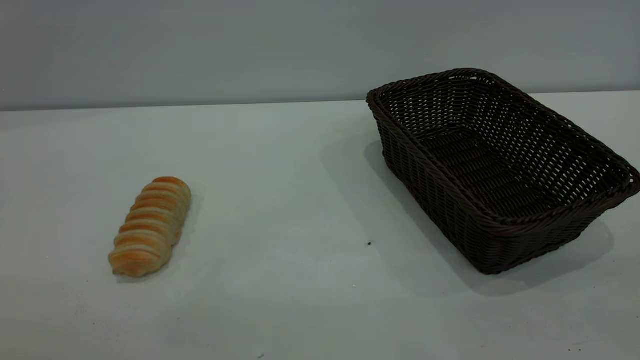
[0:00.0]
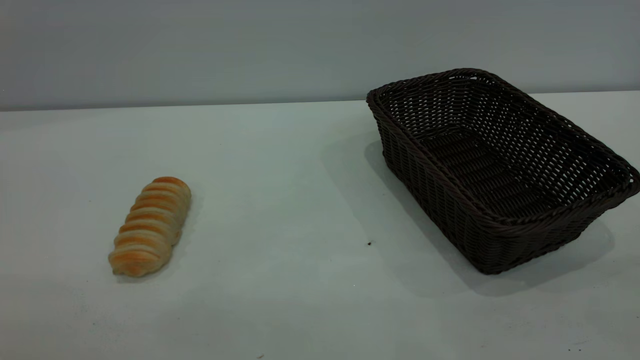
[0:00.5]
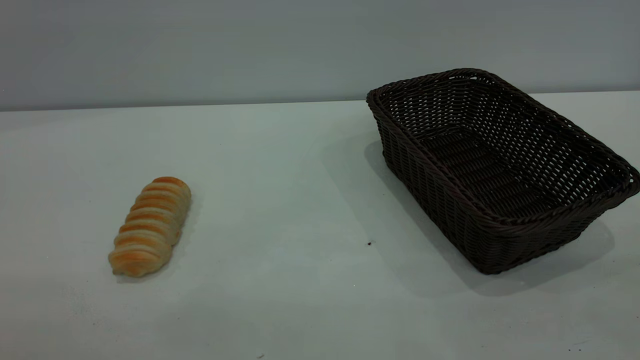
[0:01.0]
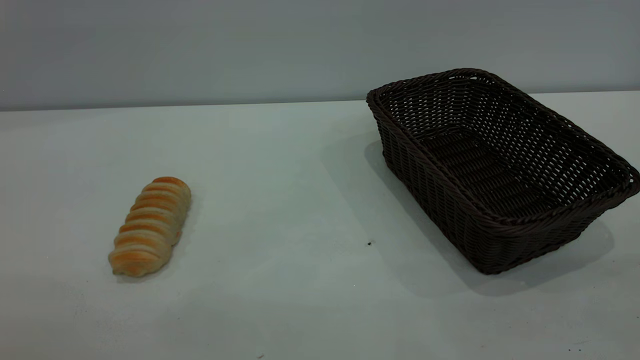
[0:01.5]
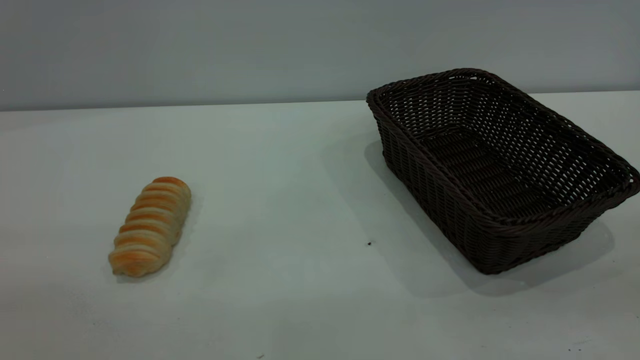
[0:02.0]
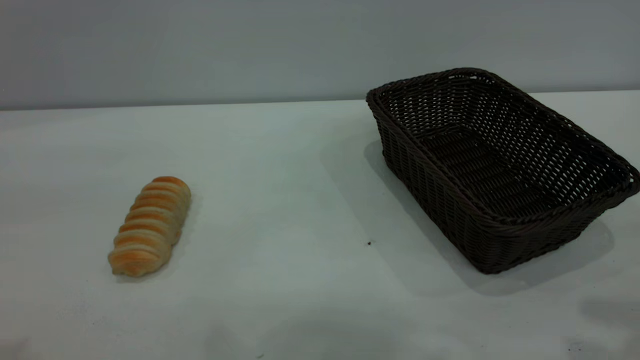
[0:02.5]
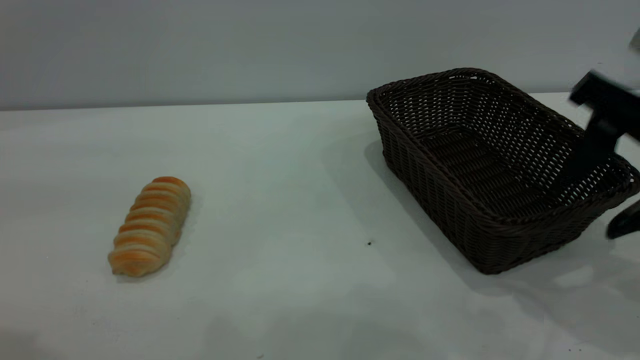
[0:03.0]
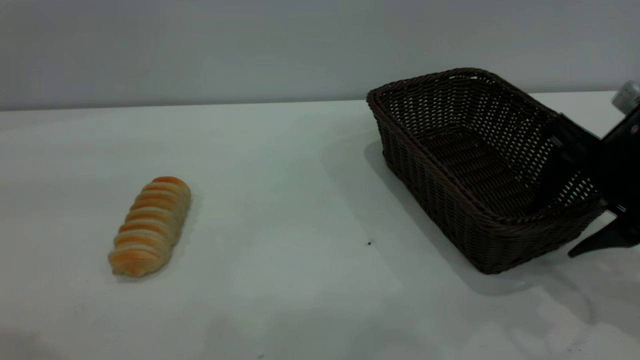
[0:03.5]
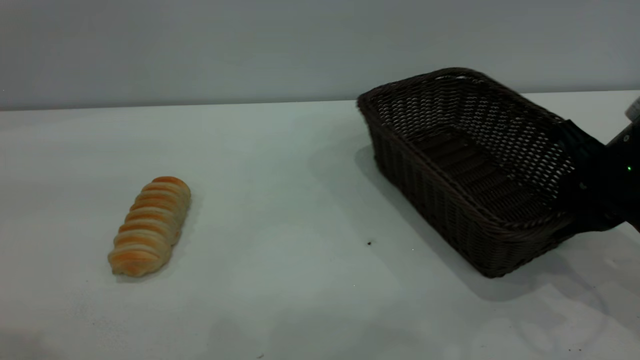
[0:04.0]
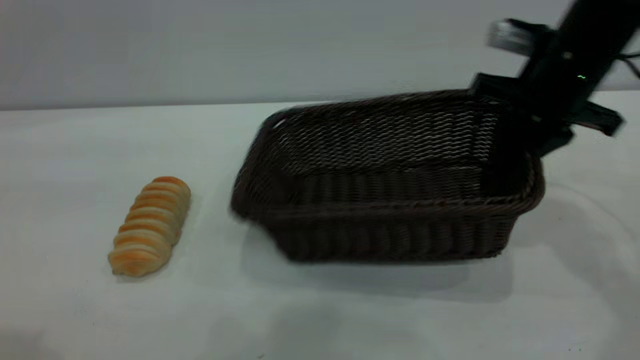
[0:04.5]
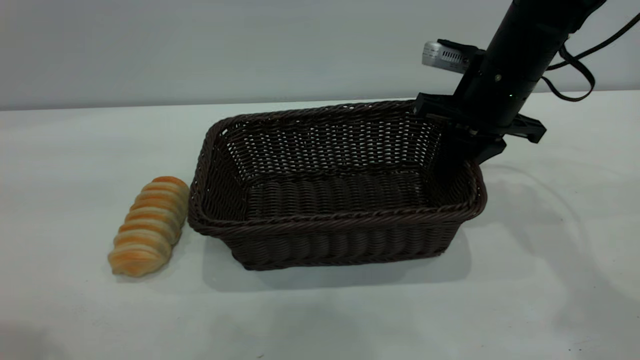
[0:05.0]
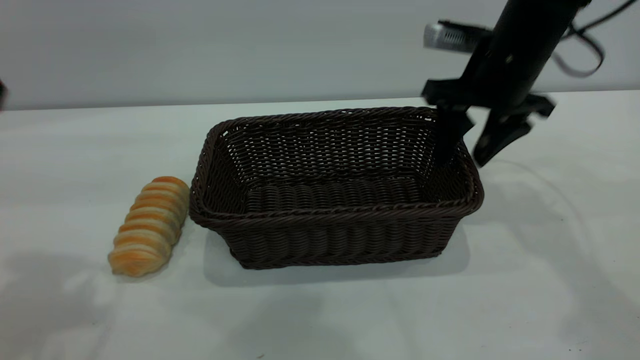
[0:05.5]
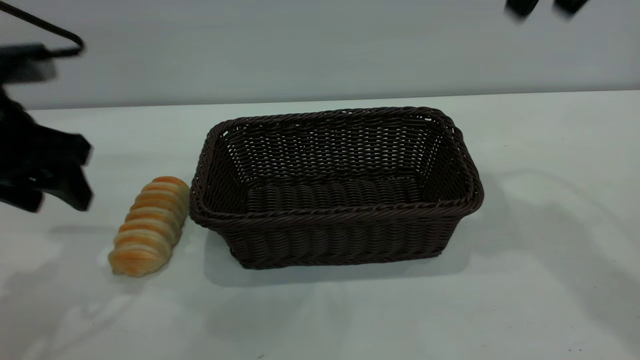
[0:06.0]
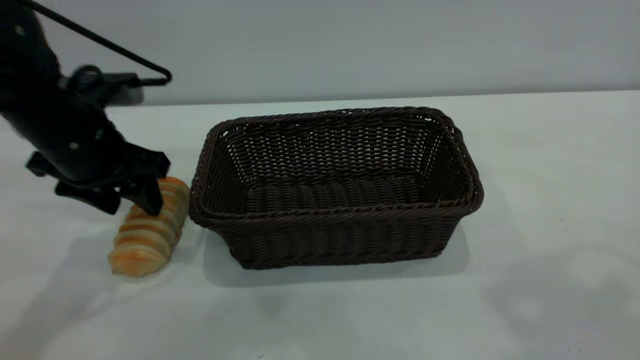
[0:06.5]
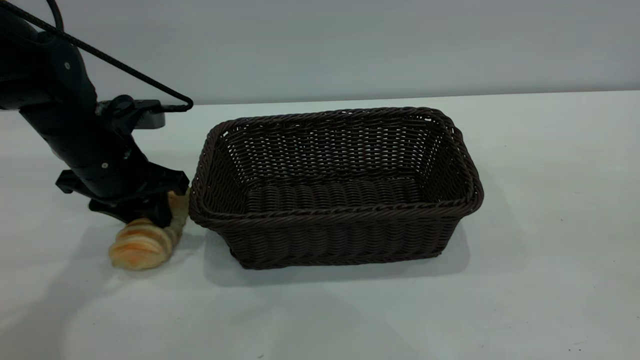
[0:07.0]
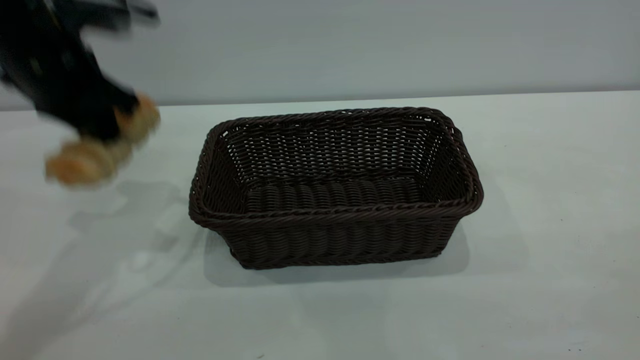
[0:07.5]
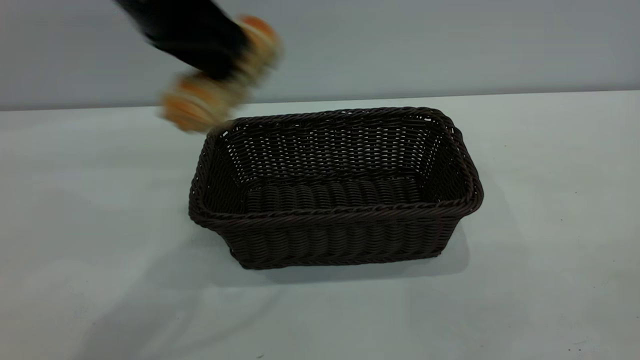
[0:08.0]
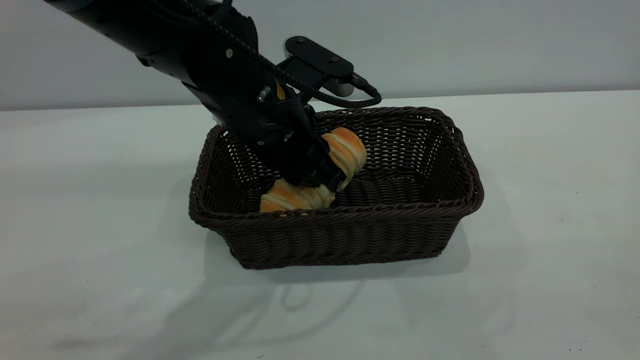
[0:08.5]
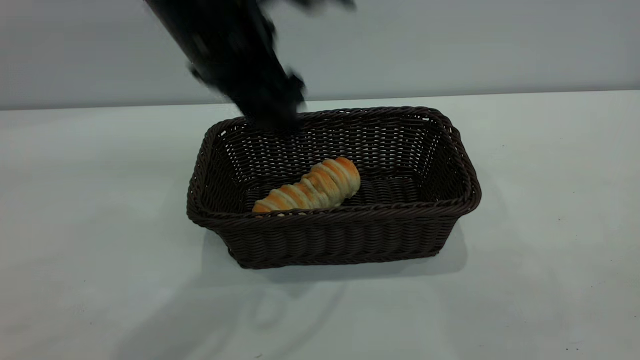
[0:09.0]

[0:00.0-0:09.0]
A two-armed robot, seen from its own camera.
Task of the whole recording: One hand grasps the black basket and places it in the middle of the table, while the other hand picks up the long bread and puts it into the black basket.
Step, 0:00.0 to 0:05.5: Move the basket to the center of view.
Step, 0:07.5 to 0:09.0: place the bread into the basket.
0:02.0 to 0:04.5: The right gripper travels forward and downward by roughly 40 cm, and closes its fingers. Meanwhile the left gripper heads forward, covering about 15 cm.
0:04.5 to 0:07.0: The right gripper goes about 35 cm backward and upward, and opens; the left gripper goes about 35 cm downward and forward, and closes up.
0:07.0 to 0:09.0: The left gripper moves upward and to the right, approximately 25 cm, and opens up; the right gripper shifts some 10 cm backward and downward.

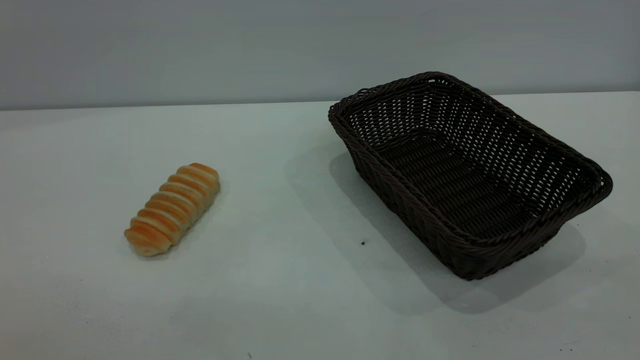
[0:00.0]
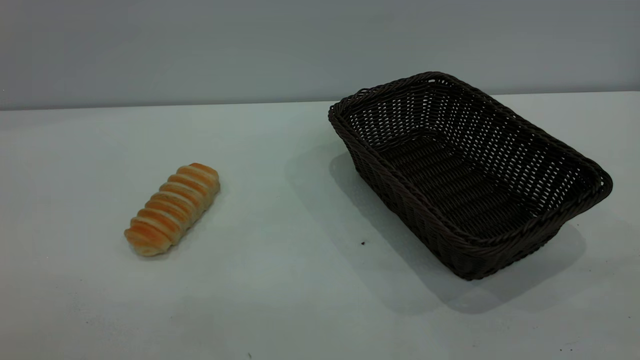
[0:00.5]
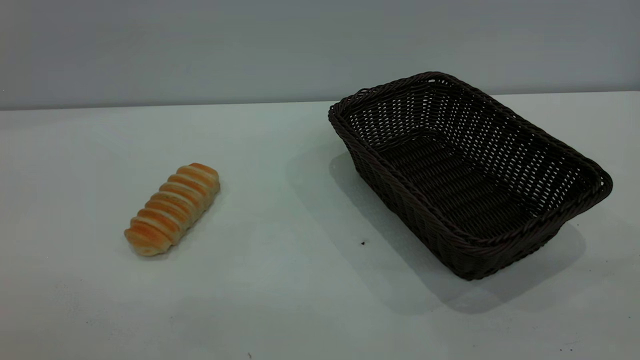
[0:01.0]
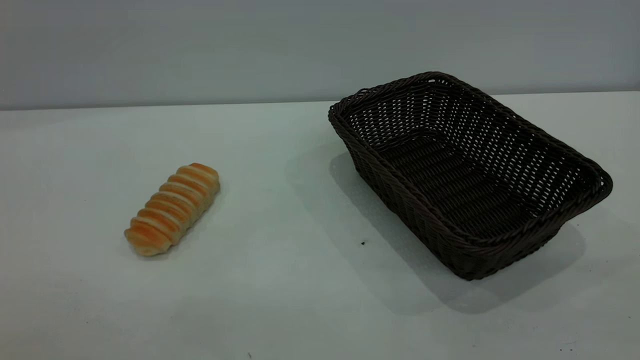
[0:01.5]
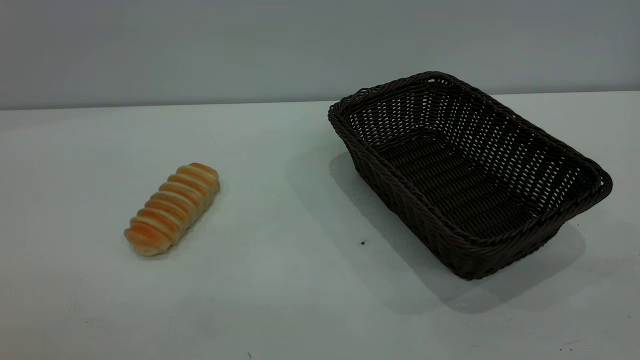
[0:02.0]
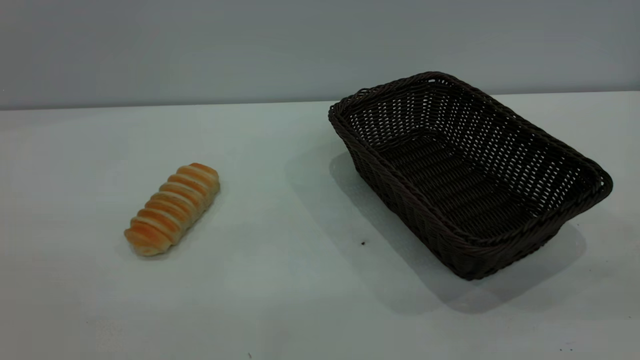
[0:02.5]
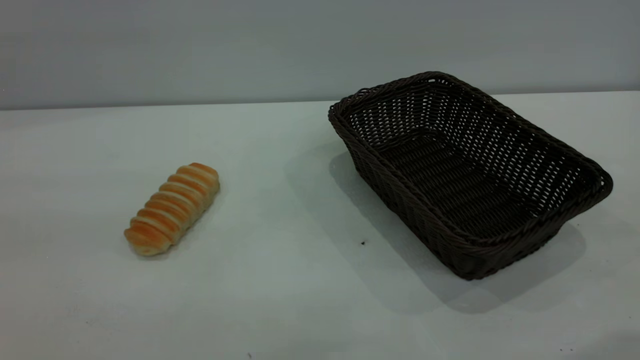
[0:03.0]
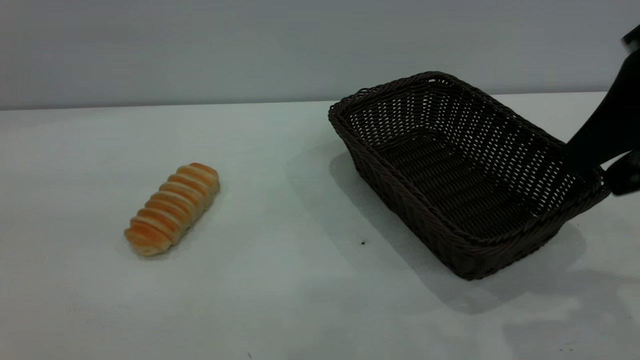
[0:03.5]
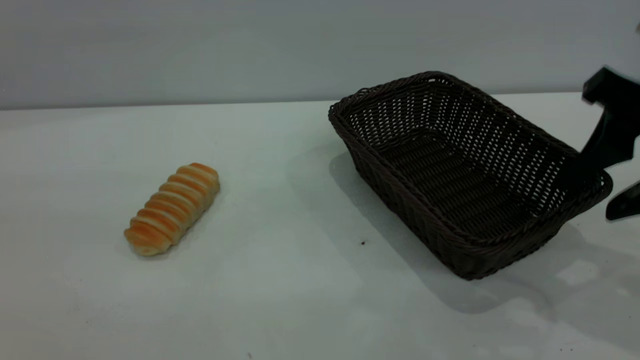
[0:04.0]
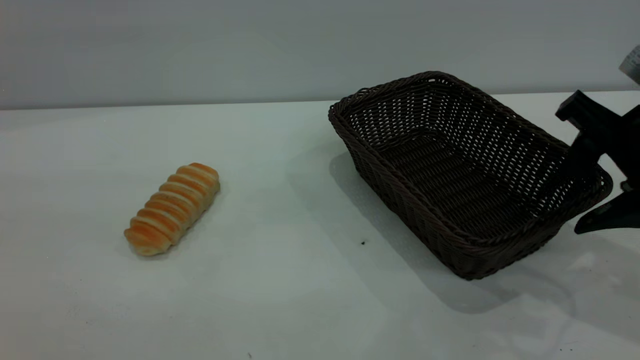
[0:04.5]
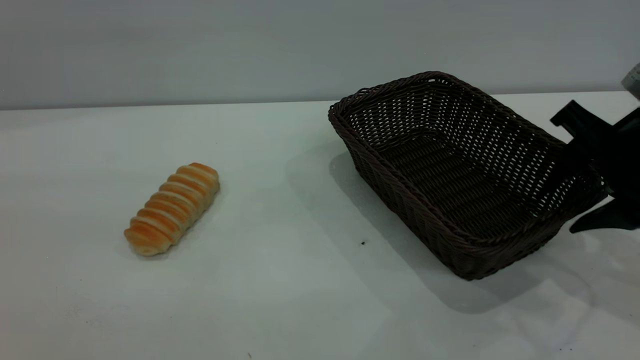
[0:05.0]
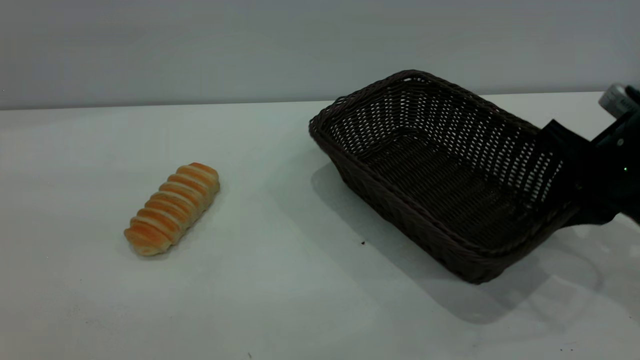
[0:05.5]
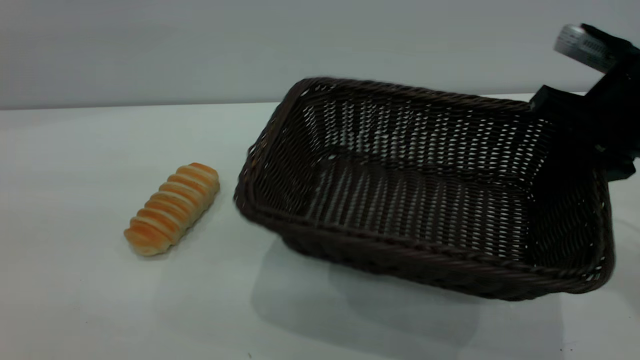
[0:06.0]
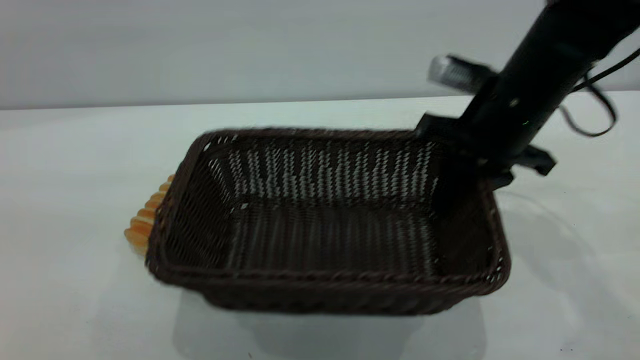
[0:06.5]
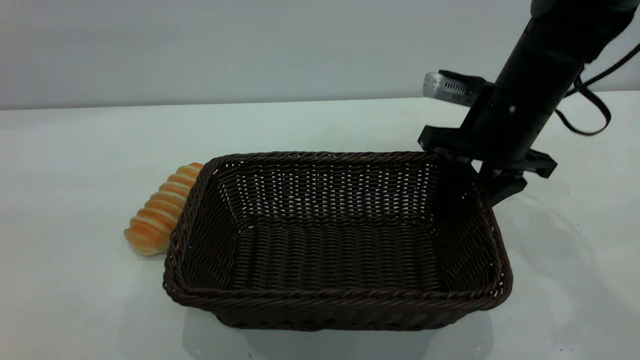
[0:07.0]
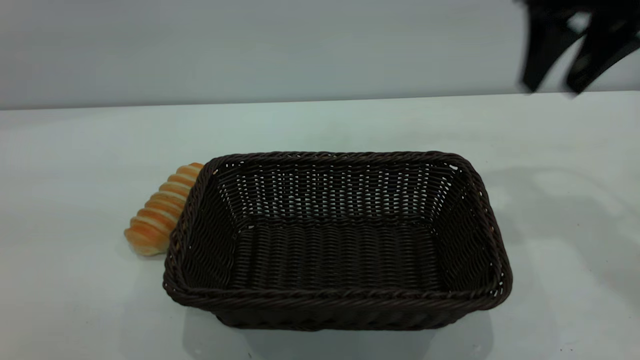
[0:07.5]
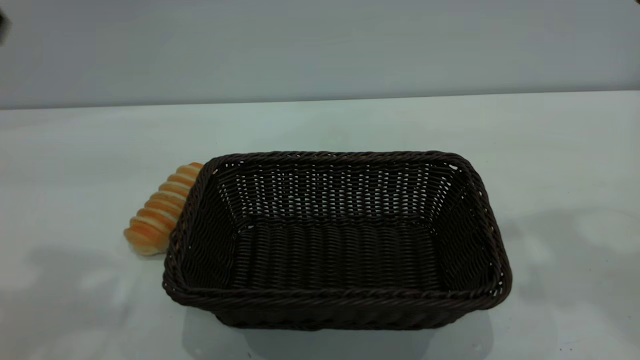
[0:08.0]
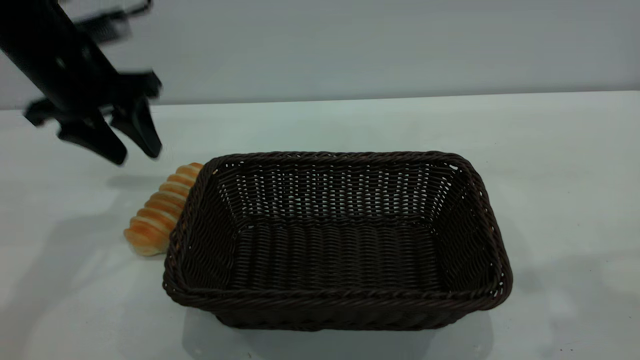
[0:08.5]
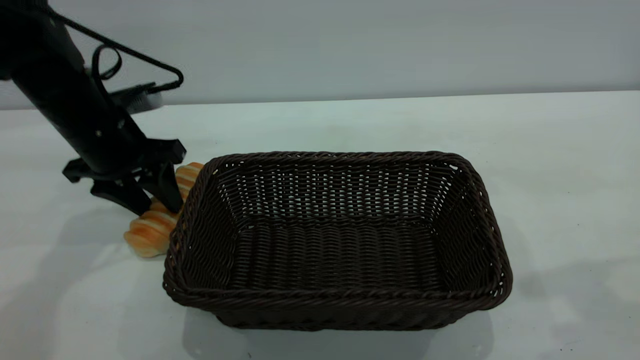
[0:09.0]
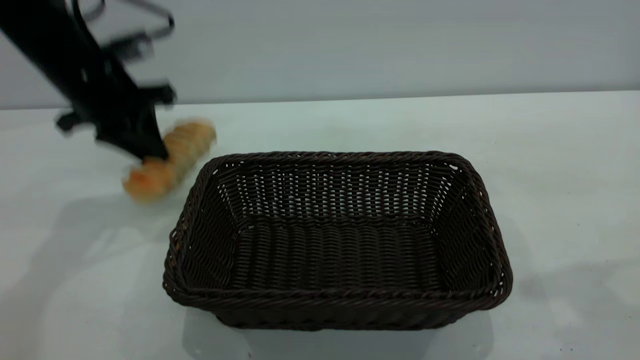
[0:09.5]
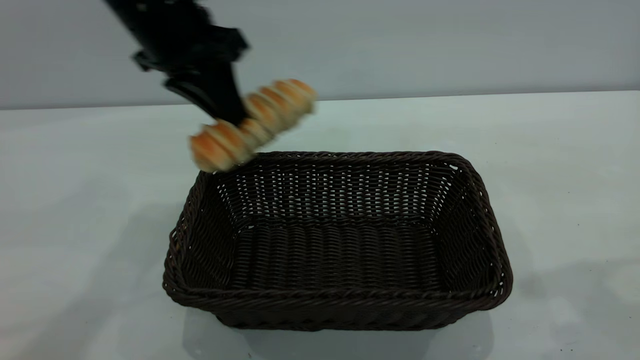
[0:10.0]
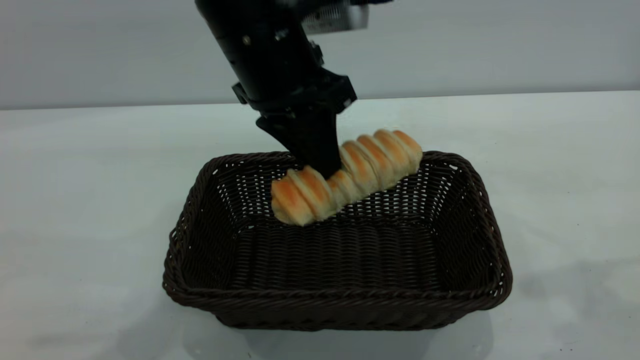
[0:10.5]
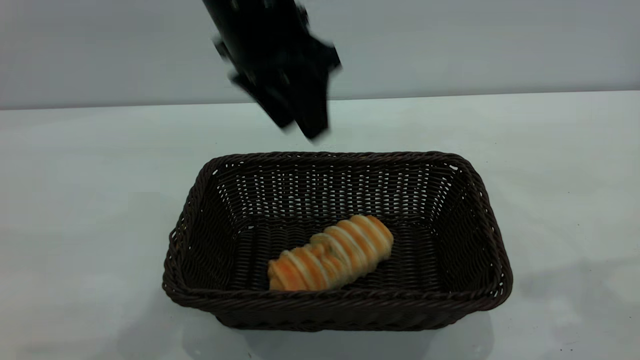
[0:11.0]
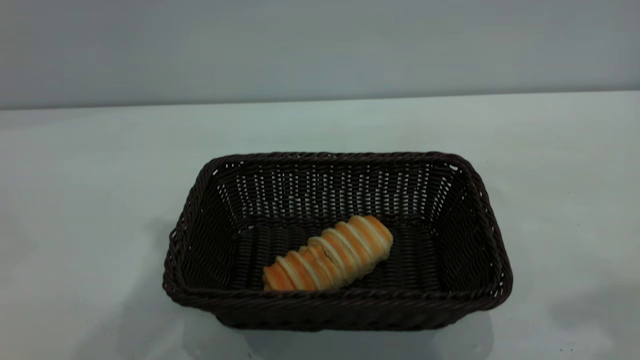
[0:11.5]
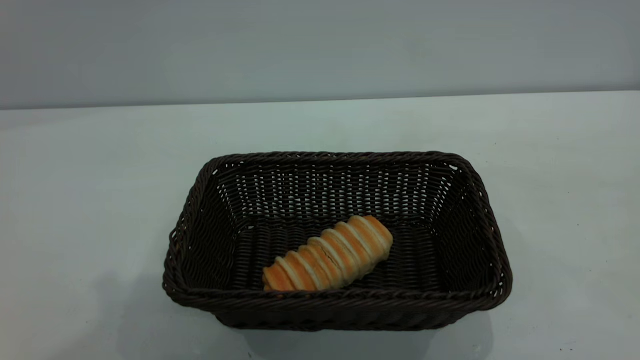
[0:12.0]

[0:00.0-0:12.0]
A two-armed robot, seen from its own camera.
Task of the whole recording: One hand grasps the black basket and places it in the middle of the table, while the other hand picks up the long bread and puts it into the black basket.
Step, 0:00.0 to 0:07.0: Move the basket to the center of view.
Step, 0:10.0 to 0:11.0: place the bread into the basket.
0:00.0 to 0:02.0: Both grippers stay put.
0:02.0 to 0:04.0: The right gripper is displaced forward and downward by about 30 cm.
0:04.0 to 0:06.0: The right gripper is displaced forward by some 5 cm, moves some 10 cm downward and comes back, and closes.
0:06.0 to 0:08.0: The right gripper moves upward, roughly 20 cm, and opens its fingers; the left gripper moves forward, approximately 15 cm.
0:08.0 to 0:10.0: The right gripper goes approximately 5 cm backward; the left gripper travels to the right, forward and downward by approximately 20 cm, and closes its fingers.
0:10.0 to 0:12.0: The left gripper moves upward and backward, about 25 cm, and opens up; the right gripper heads backward and upward, covering some 15 cm.
